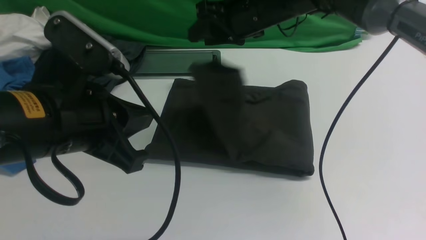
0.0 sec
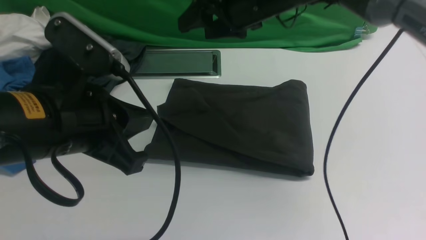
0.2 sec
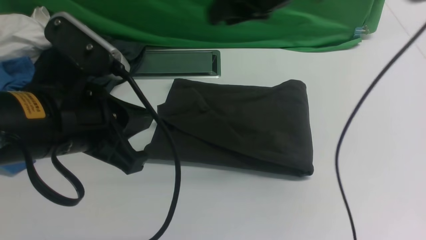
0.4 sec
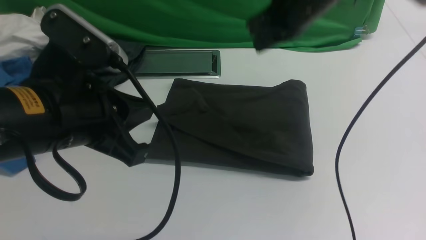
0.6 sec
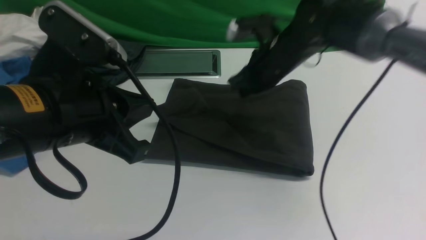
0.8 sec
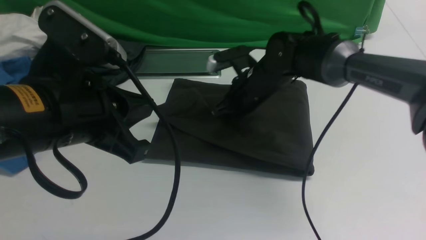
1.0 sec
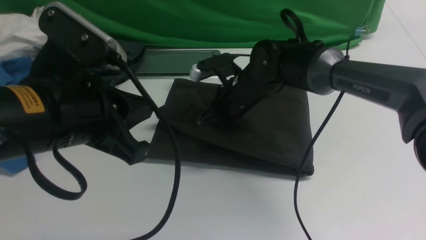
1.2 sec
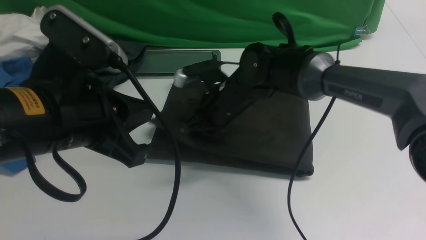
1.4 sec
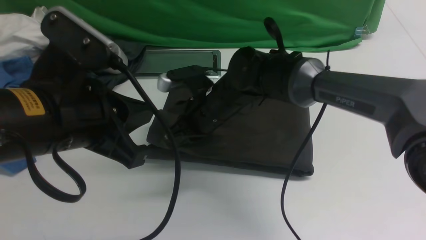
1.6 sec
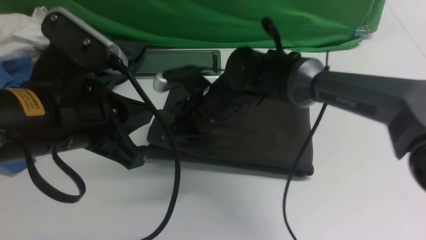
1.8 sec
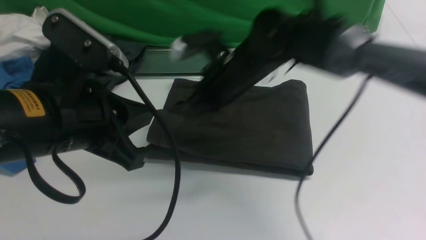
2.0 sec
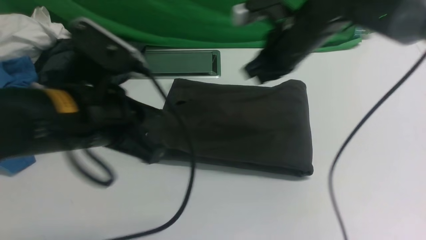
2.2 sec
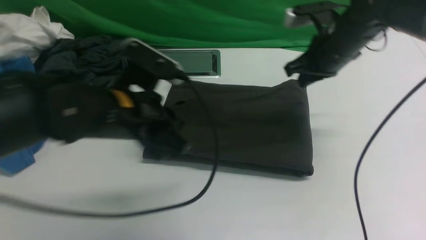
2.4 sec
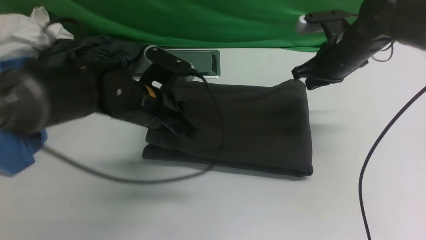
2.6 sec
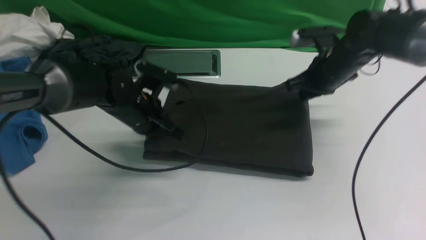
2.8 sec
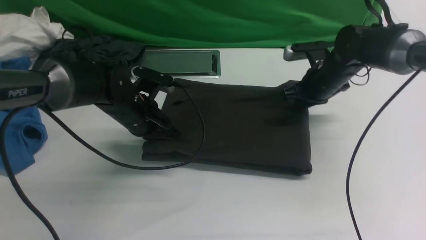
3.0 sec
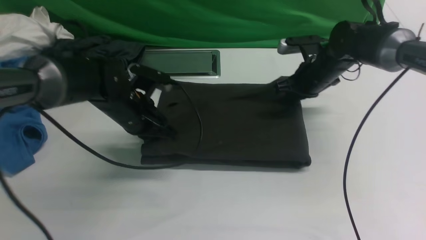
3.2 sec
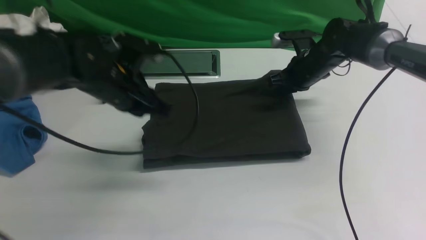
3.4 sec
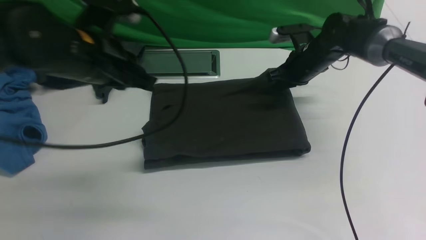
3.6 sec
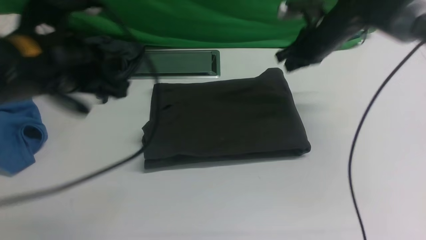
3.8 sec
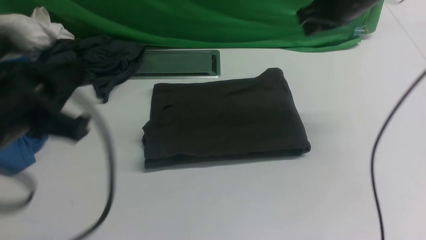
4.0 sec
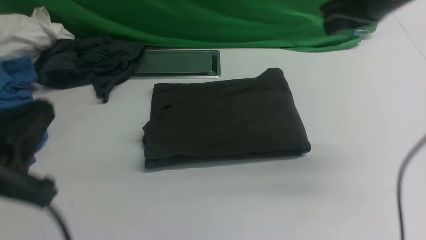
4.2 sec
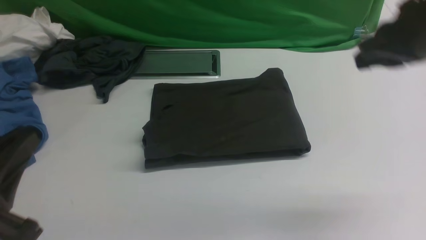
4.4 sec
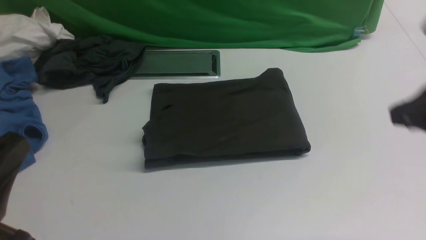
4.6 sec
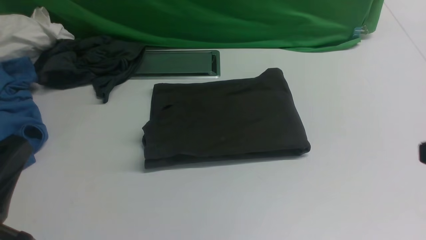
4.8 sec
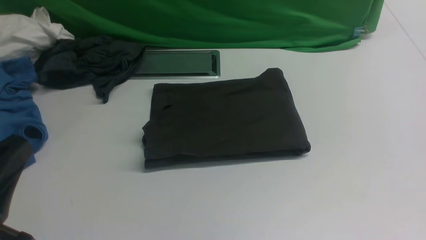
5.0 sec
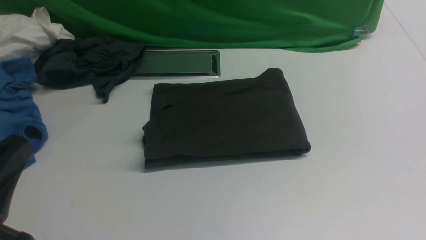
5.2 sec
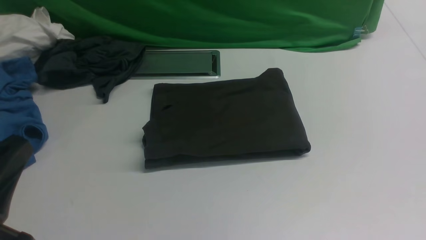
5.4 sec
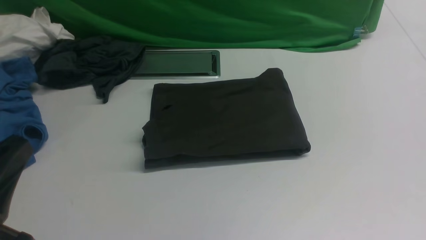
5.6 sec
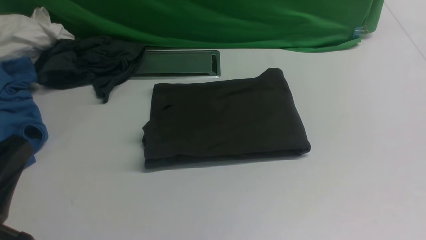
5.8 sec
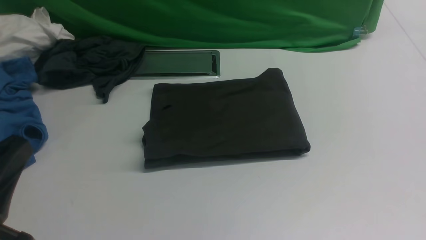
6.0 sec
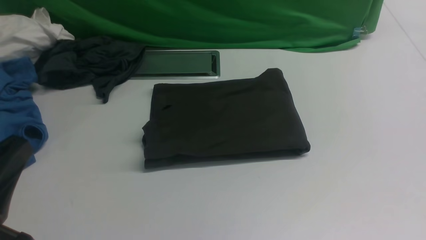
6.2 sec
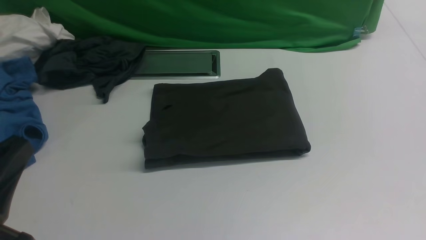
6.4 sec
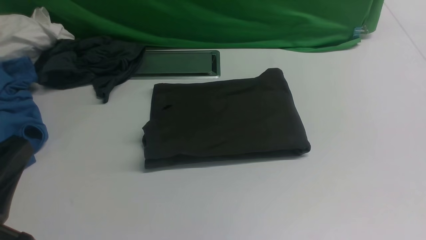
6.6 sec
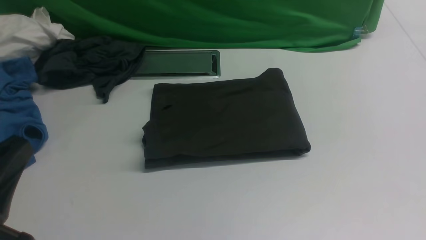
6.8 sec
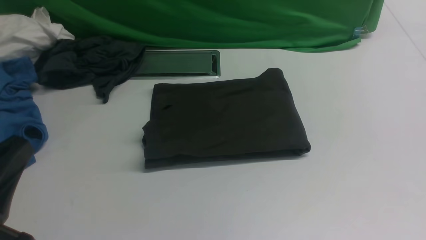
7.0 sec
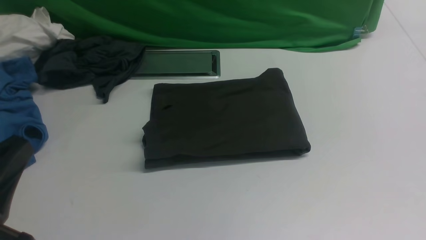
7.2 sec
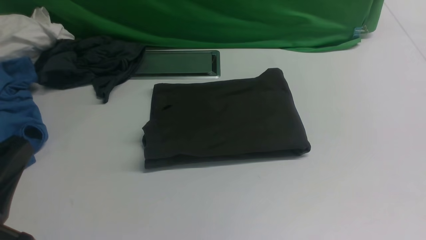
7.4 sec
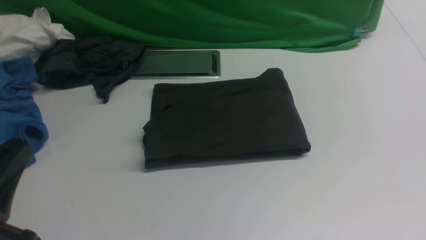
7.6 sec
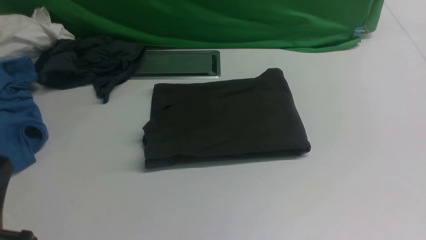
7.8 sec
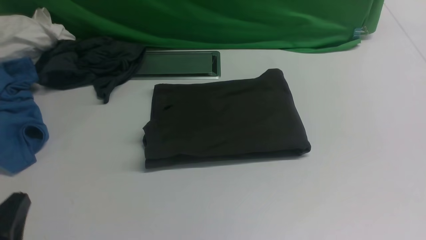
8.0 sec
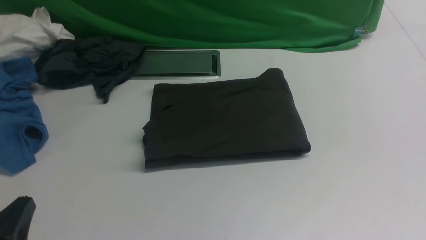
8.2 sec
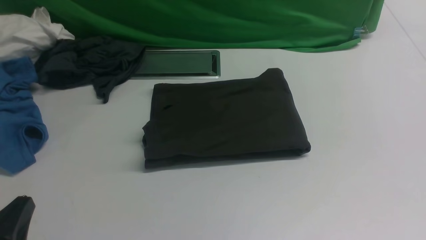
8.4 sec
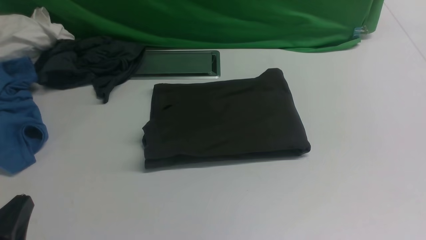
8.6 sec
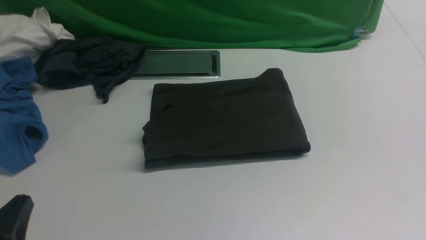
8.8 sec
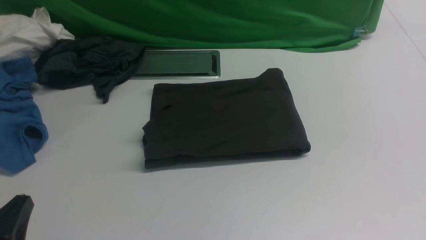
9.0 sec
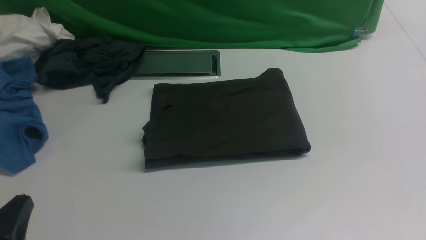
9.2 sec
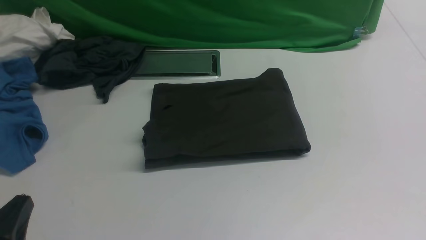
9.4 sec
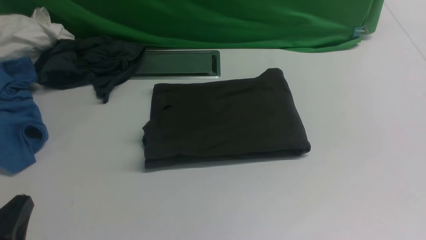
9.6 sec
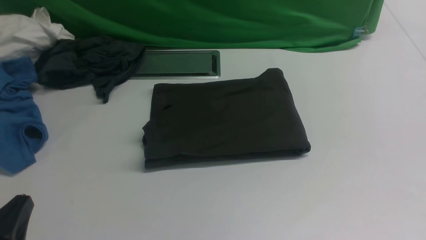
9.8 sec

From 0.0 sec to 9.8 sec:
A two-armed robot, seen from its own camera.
From 0.0 sec to 1.4 sec: The right gripper shifts roughly 15 cm downward and to the left, and closes its fingers.
From 1.4 sec to 2.8 sec: The right gripper travels to the right by roughly 20 cm. Meanwhile the left gripper shifts some 25 cm forward and downward.
From 2.8 sec to 4.2 sec: The left gripper heads backward and upward, covering some 30 cm, while the right gripper travels upward and backward by about 20 cm.
From 4.2 sec to 5.6 sec: The right gripper heads backward, covering some 25 cm.
From 7.0 sec to 8.4 sec: The left gripper heads downward, covering about 10 cm.
From 8.4 sec to 9.8 sec: The two grippers keep their place.

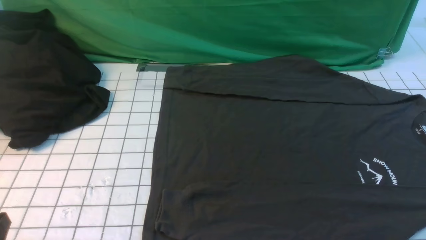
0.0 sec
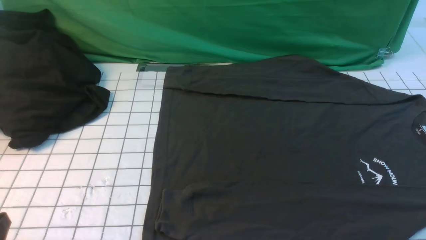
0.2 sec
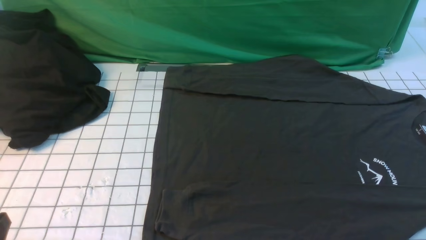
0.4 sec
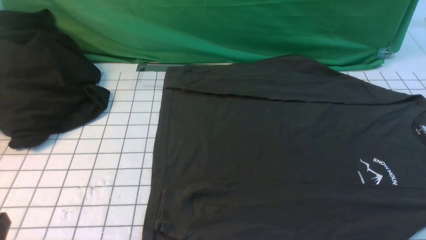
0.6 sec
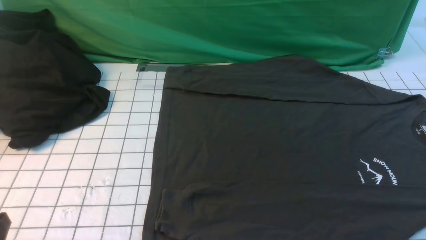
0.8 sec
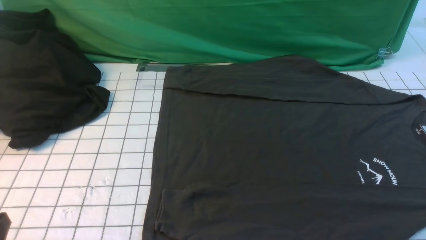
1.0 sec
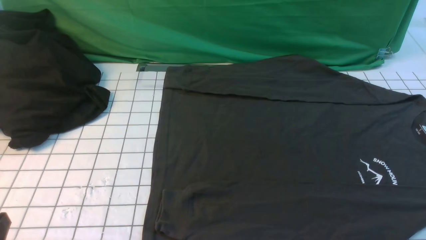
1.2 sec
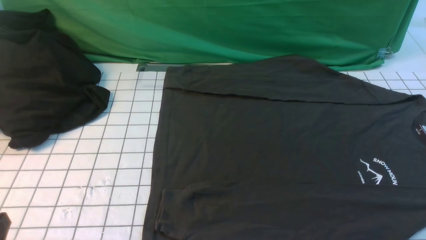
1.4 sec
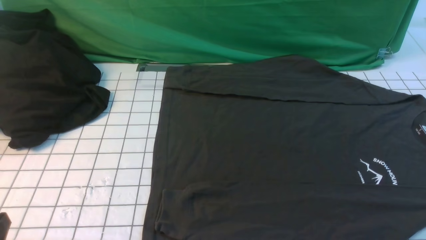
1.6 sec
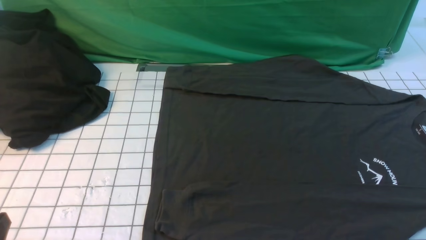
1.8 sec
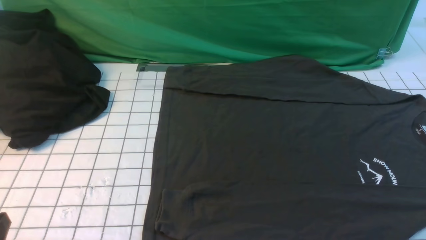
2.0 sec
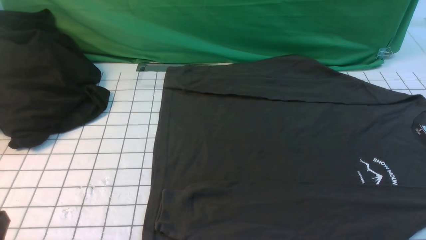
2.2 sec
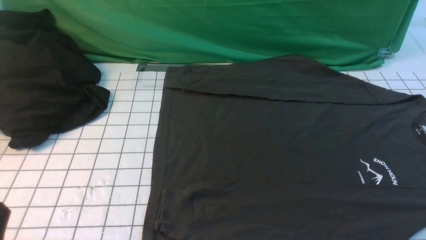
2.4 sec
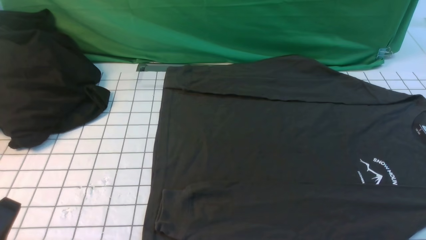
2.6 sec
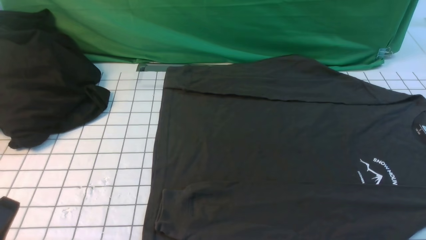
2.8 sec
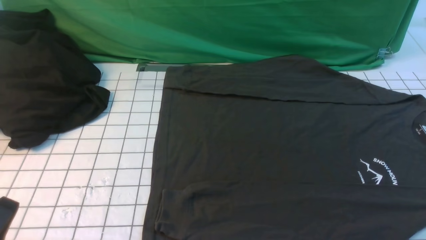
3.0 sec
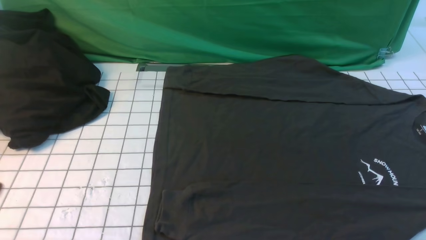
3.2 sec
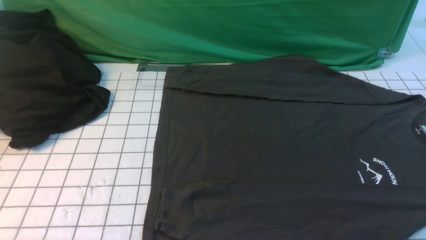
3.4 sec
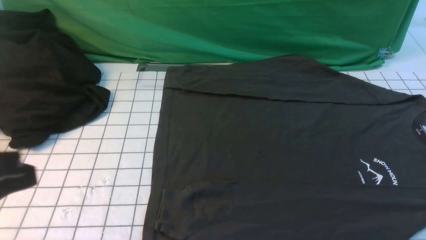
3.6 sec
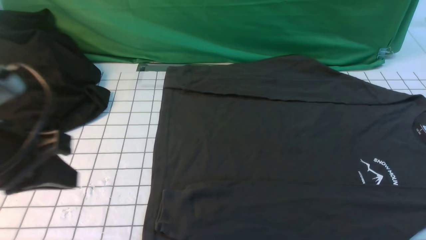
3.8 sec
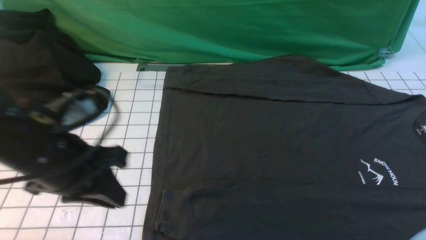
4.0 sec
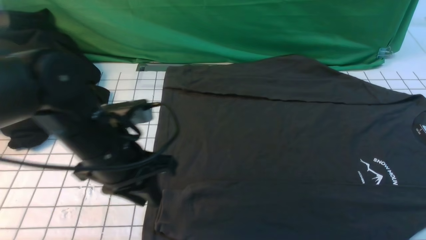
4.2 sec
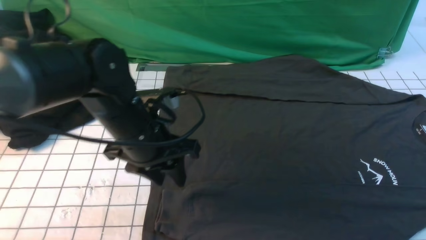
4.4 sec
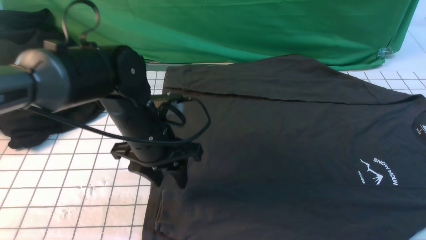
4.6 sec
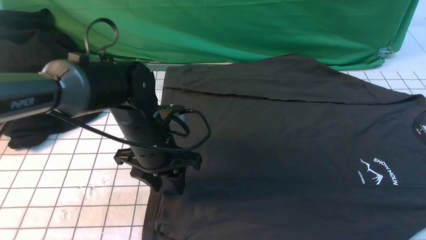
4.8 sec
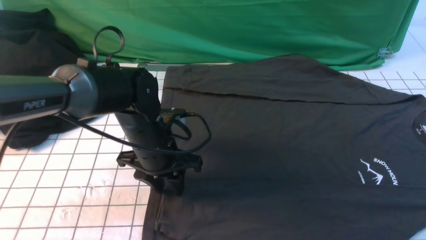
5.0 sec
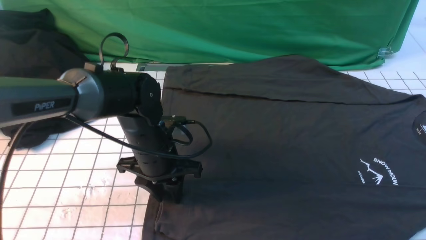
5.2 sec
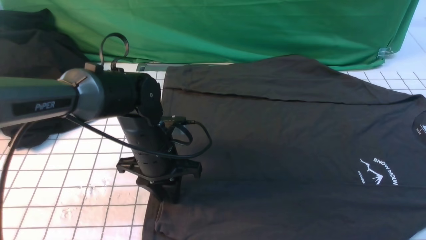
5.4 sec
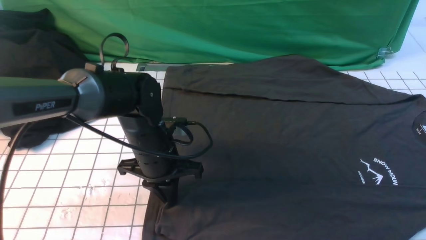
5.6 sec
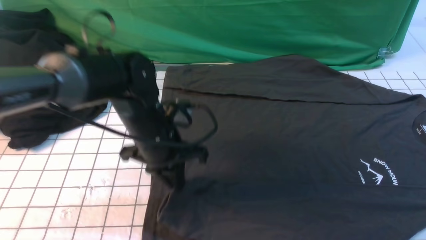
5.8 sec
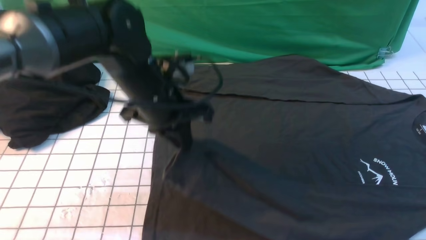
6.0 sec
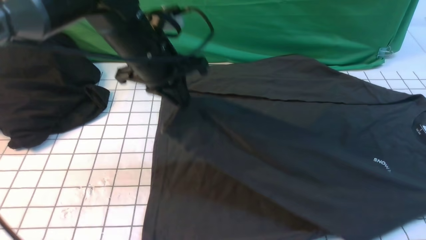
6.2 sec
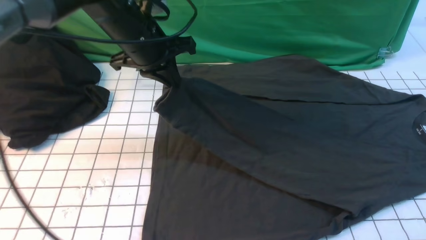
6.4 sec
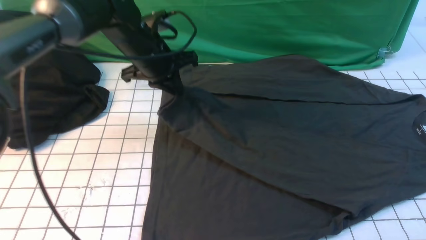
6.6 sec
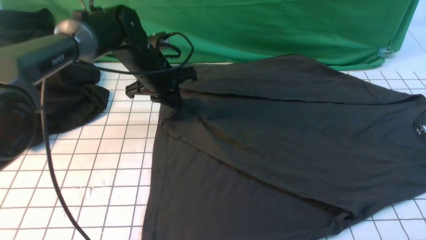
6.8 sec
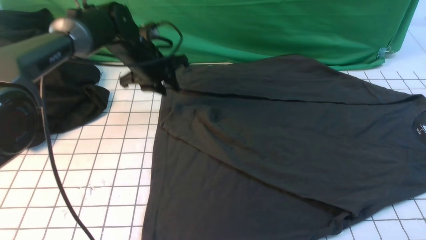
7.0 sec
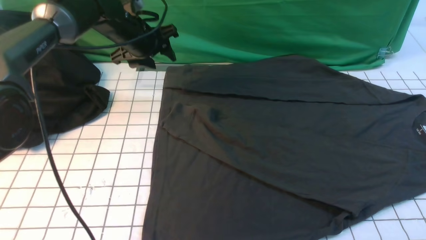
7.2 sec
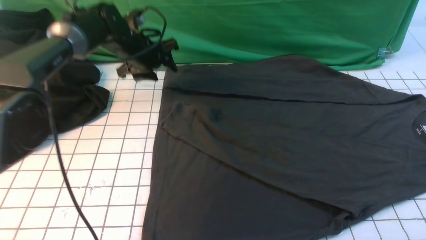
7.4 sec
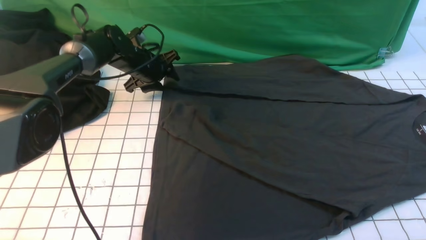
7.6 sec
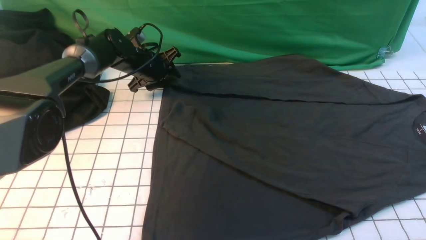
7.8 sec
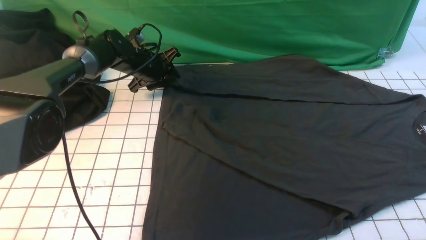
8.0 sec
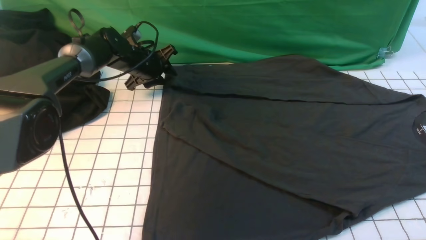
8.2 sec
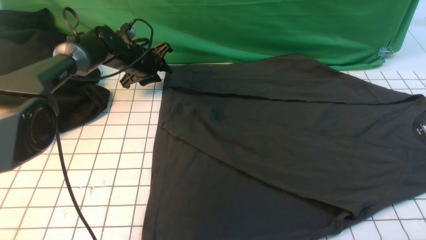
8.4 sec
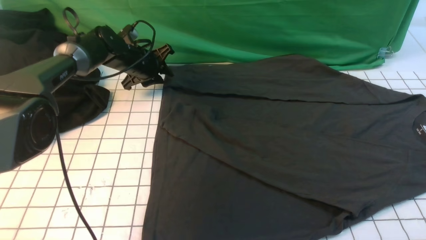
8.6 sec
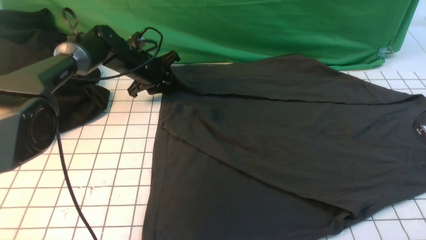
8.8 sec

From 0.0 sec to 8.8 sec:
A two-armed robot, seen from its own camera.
Step, from 0.0 sec to 5.6 sec: use the left arm to clamp the cuff closest to it.
Step, from 5.8 sec to 6.8 sec: use the left arm to drag and place the cuff at the centered position on the left edge of the fabric.
From 0.0 sec to 1.4 sec: Both grippers stay put.
From 3.0 sec to 4.4 sec: The right gripper moves upward and forward, about 10 cm; the left gripper goes roughly 30 cm forward and to the right, and opens its fingers.
From 4.4 sec to 5.8 sec: The left gripper closes its fingers.
From 5.8 sec to 7.4 sec: The left gripper moves forward, approximately 20 cm, and opens its fingers.
From 7.4 sec to 8.8 sec: The grippers make only small movements.
